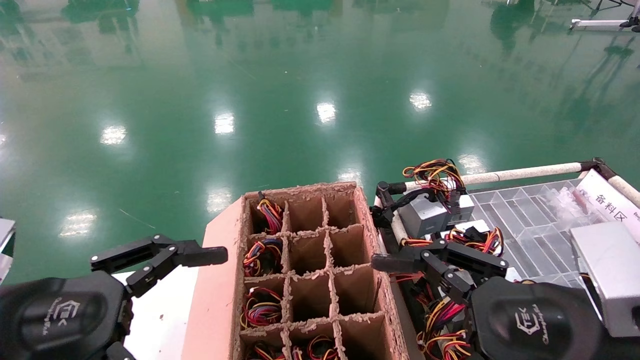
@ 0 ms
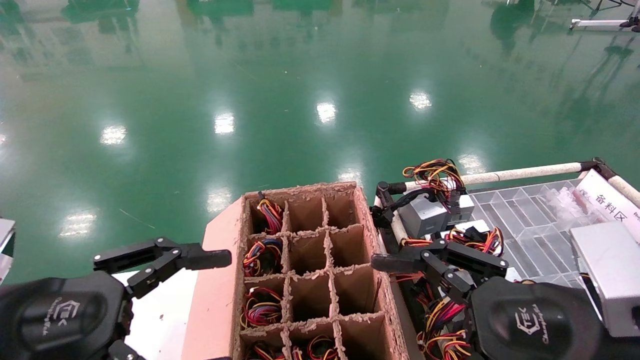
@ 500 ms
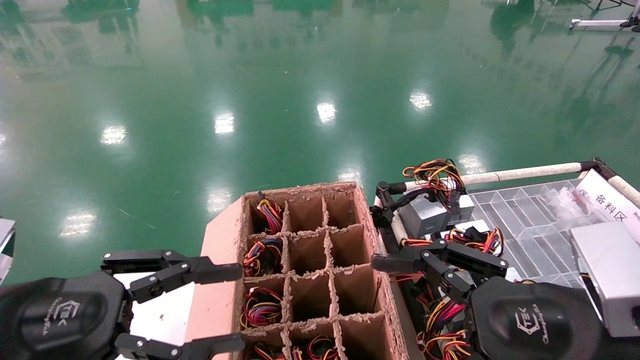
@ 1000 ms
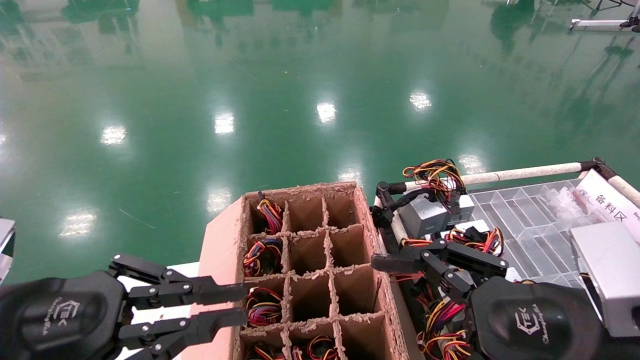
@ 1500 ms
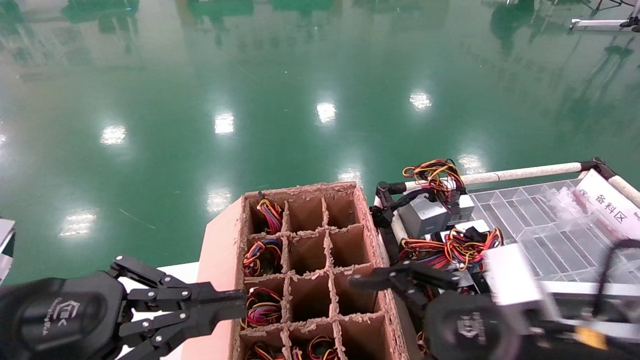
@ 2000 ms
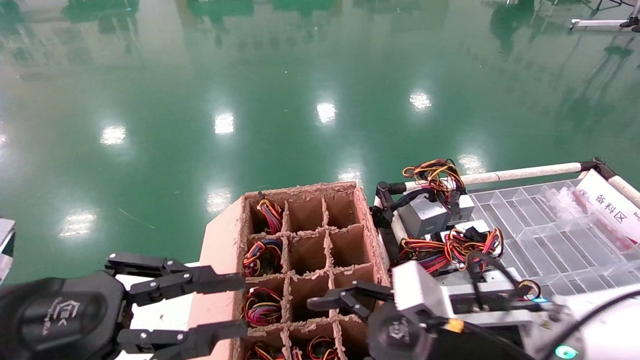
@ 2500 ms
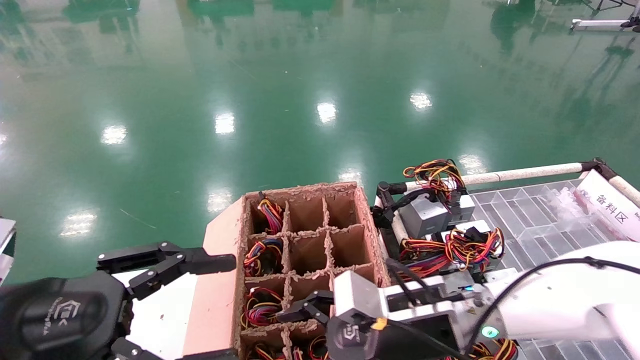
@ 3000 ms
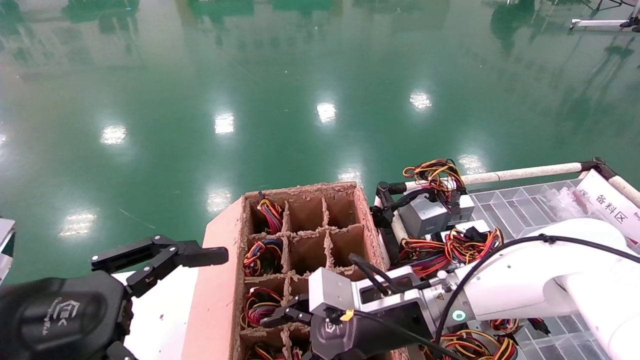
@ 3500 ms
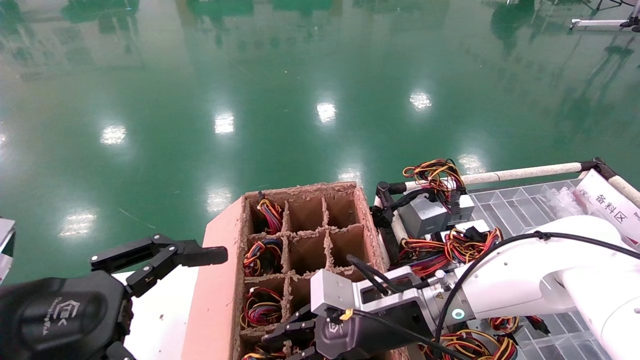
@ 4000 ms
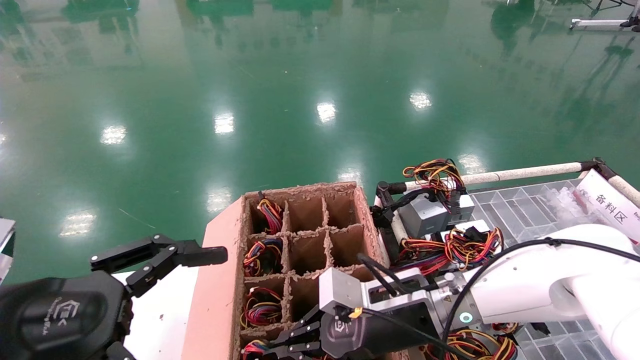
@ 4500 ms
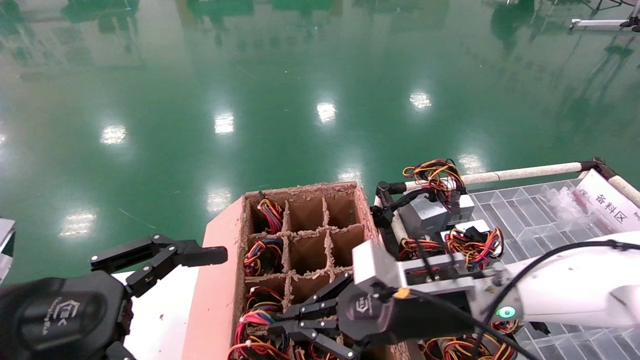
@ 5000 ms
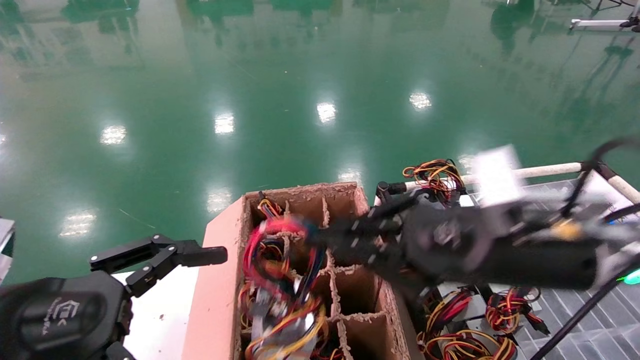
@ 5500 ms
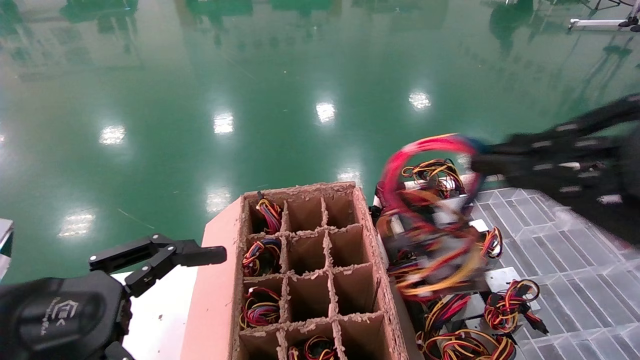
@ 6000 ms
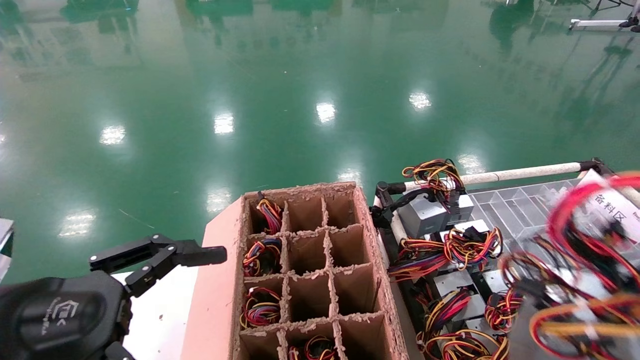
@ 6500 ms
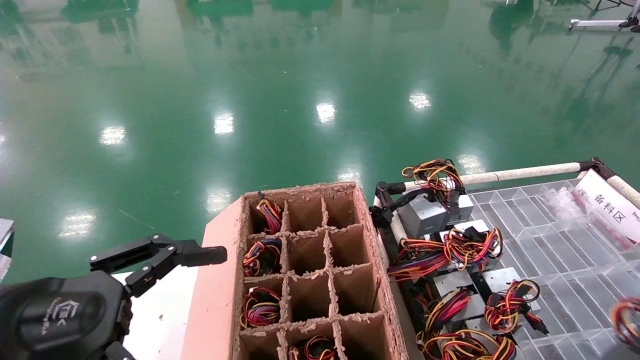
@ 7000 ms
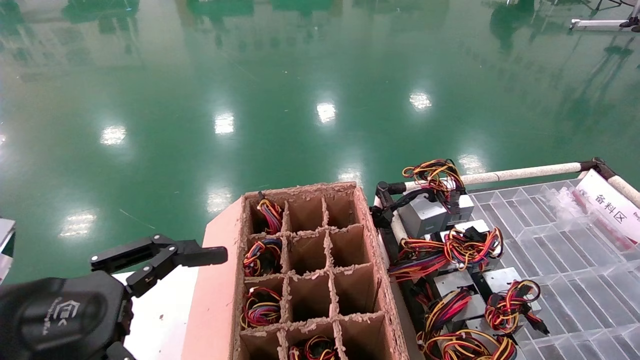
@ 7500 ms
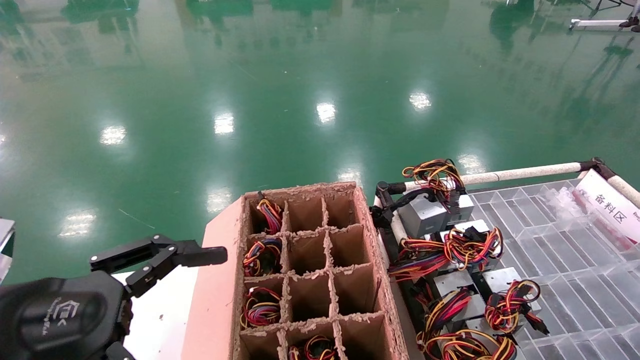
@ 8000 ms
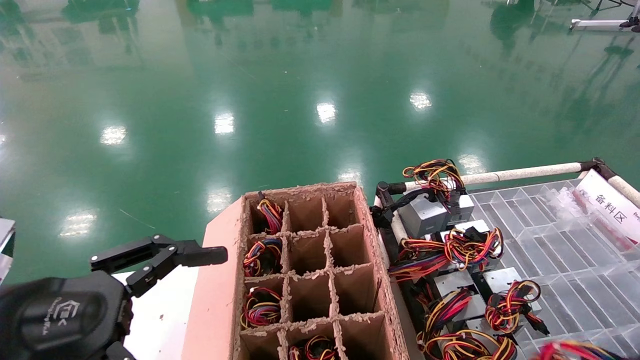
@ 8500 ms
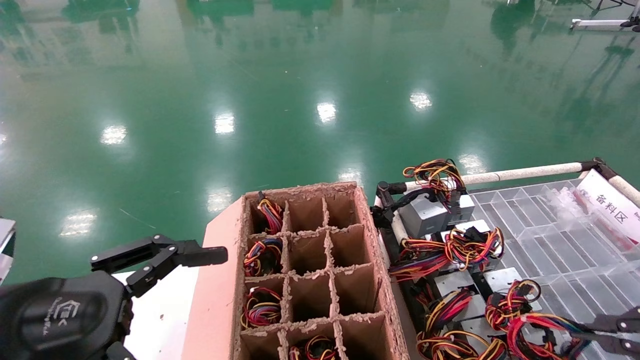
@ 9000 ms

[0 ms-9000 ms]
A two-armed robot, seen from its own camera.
Step, 2000 ms to 4500 ms: Grab and lift the power supply from the large box.
0 ms to 2000 ms: The left gripper closes its fingers, while the right gripper changes place by some 5 cm.
2000 ms to 4500 ms: The right gripper heads forward, to the left and downward, covering about 15 cm, and closes; the left gripper opens up.
4500 ms to 7000 ms: The right gripper travels backward and to the right by roughly 50 cm.
7000 ms to 9000 ms: The right gripper goes some 15 cm forward.

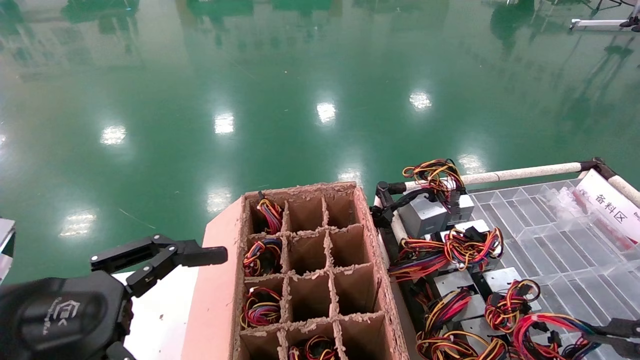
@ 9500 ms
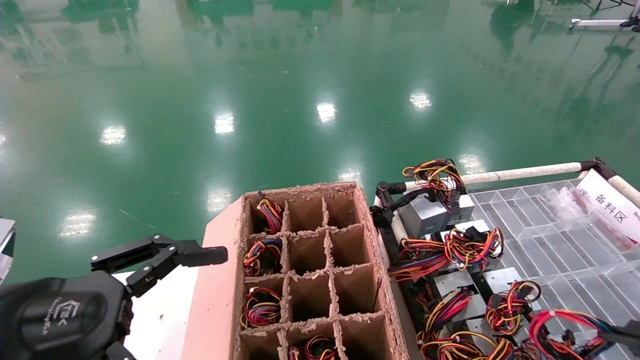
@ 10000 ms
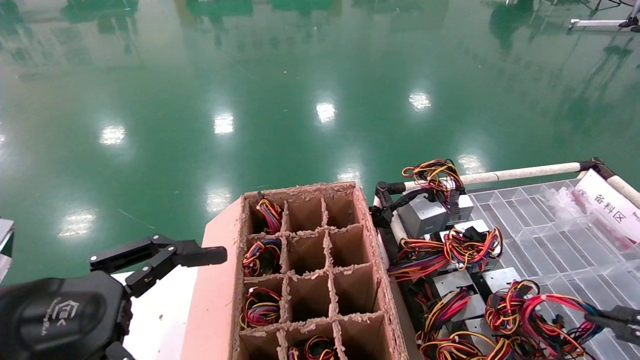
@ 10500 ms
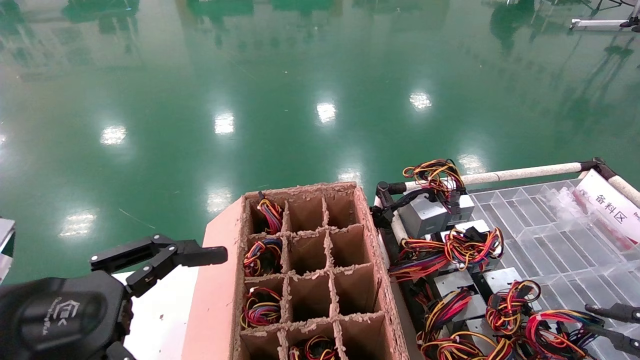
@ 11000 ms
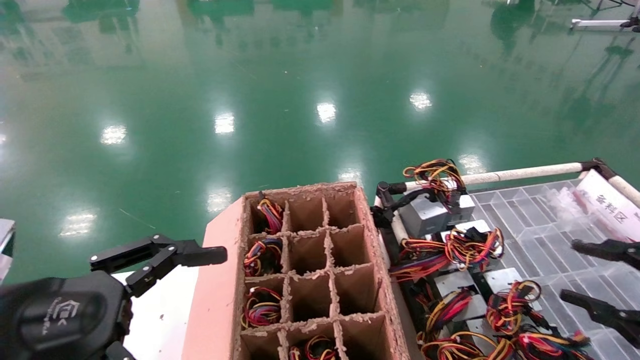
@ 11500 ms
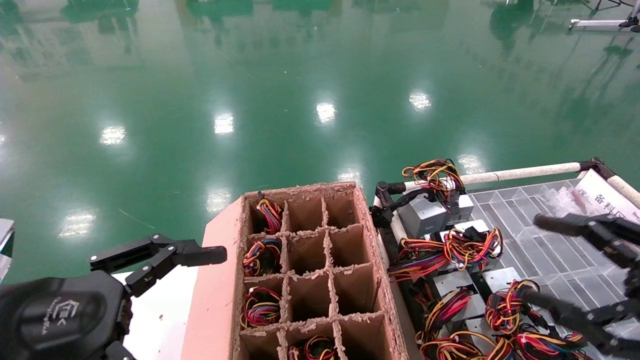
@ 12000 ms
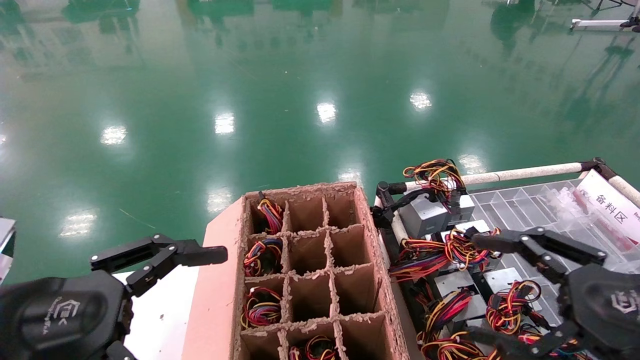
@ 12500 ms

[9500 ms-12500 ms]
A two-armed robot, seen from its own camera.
9500 ms to 11000 ms: The right gripper shifts by some 5 cm.
11000 ms to 12500 ms: The right gripper goes approximately 15 cm to the left, and opens up.
